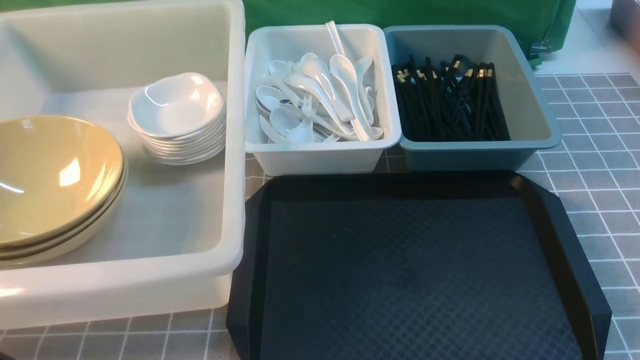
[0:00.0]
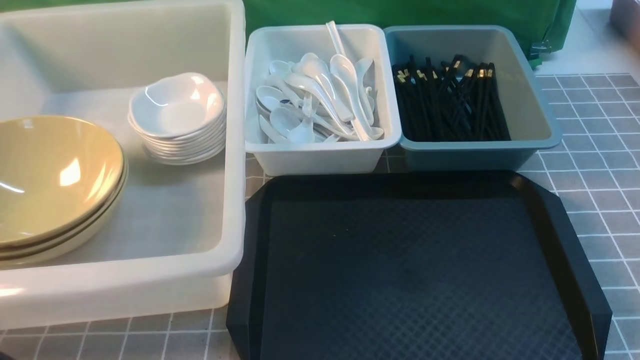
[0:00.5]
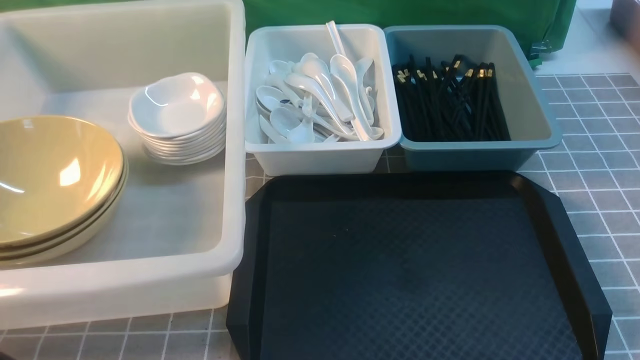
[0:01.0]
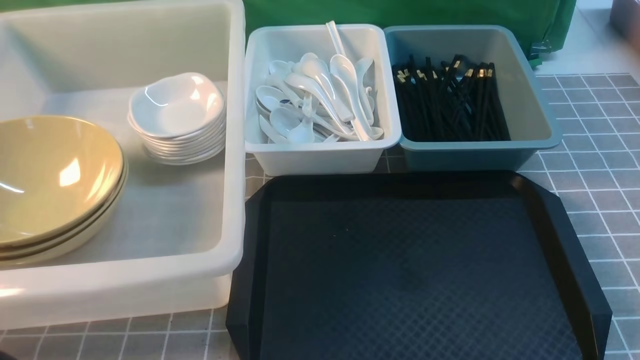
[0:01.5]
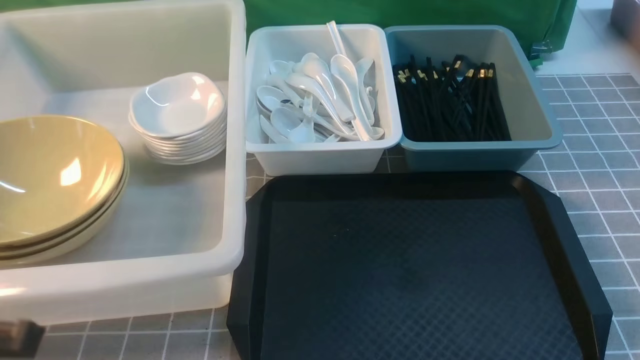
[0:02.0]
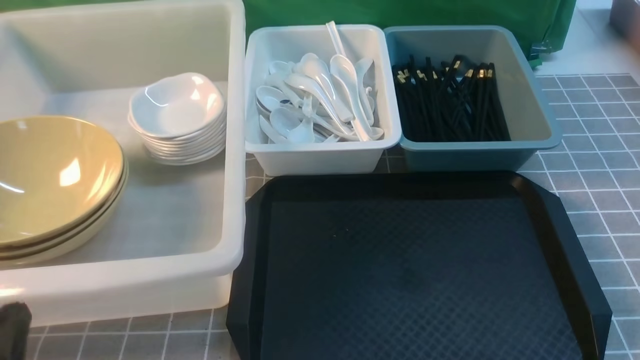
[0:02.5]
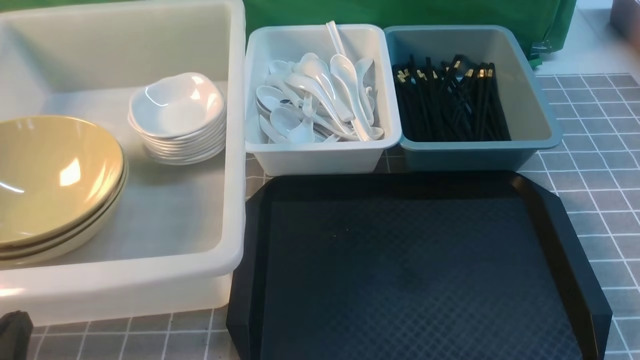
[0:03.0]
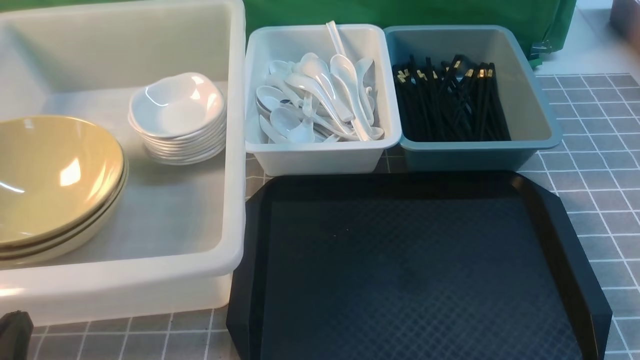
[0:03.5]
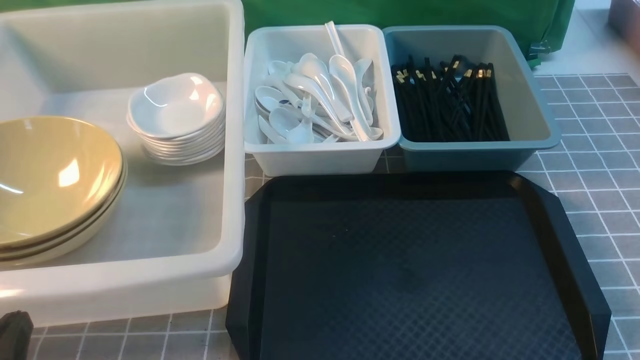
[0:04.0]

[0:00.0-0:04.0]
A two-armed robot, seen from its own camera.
Task of the whole recording: on grey table put chopsticks spoon bowls plates into blue grey white boxes.
0:00.0 to 0:02.0: The left gripper shifts some 5 cm downward.
0:02.0 to 0:04.0: The left gripper heads downward, covering approximately 5 cm.
